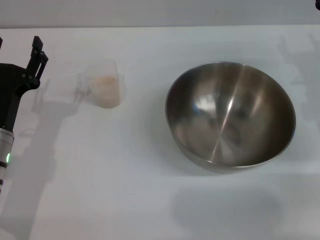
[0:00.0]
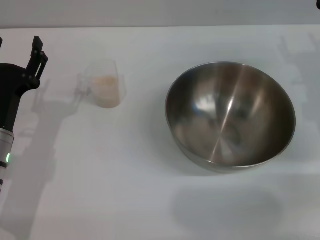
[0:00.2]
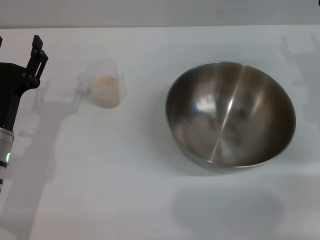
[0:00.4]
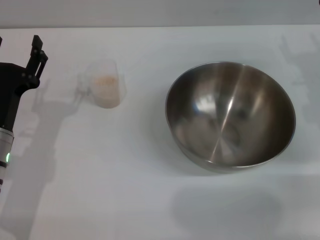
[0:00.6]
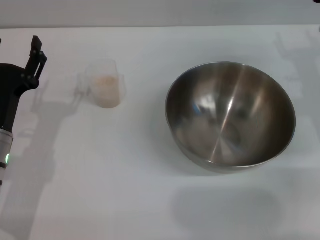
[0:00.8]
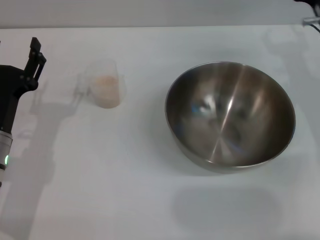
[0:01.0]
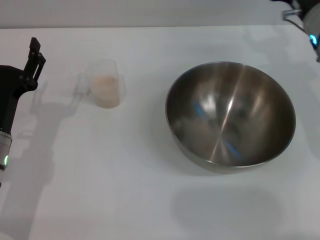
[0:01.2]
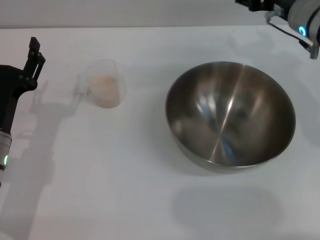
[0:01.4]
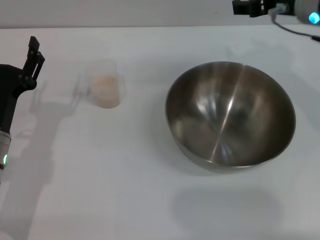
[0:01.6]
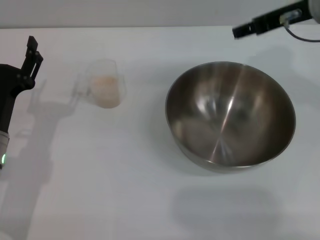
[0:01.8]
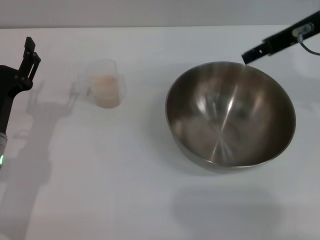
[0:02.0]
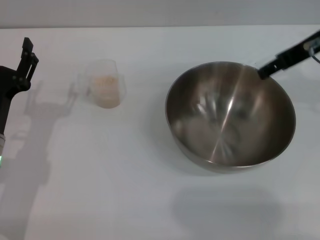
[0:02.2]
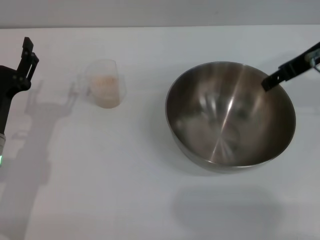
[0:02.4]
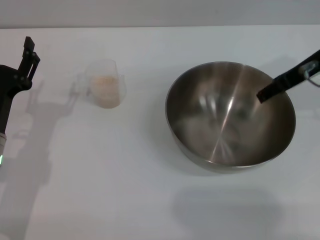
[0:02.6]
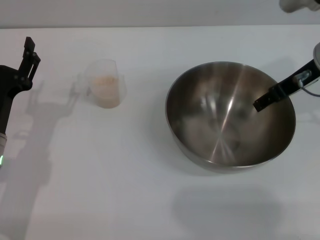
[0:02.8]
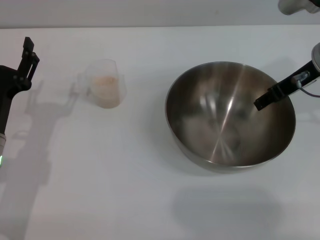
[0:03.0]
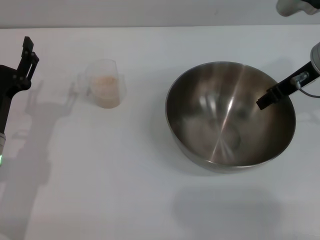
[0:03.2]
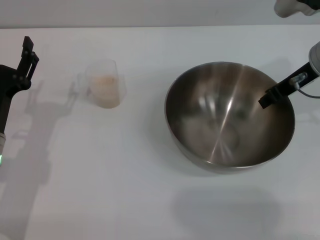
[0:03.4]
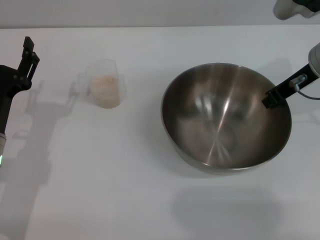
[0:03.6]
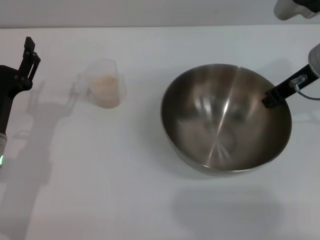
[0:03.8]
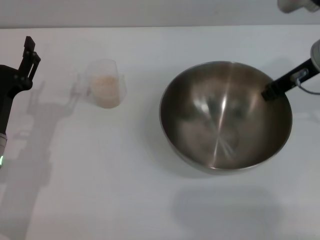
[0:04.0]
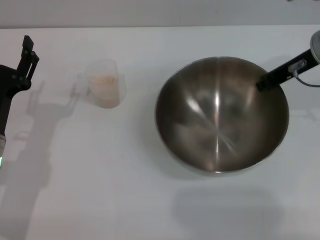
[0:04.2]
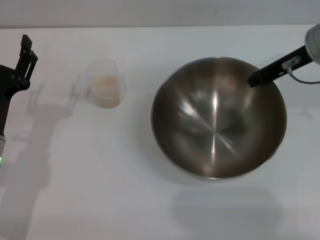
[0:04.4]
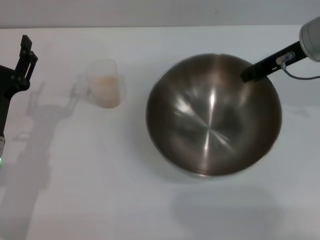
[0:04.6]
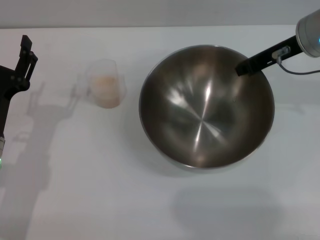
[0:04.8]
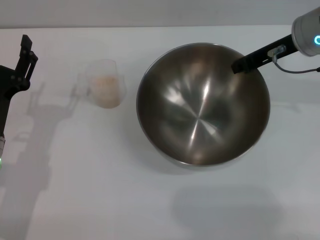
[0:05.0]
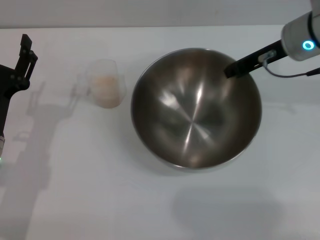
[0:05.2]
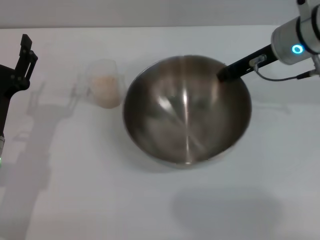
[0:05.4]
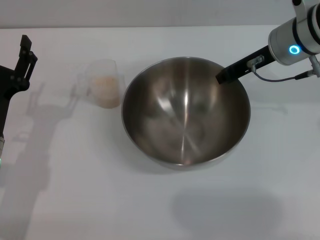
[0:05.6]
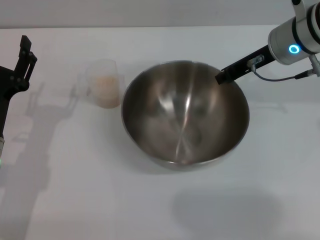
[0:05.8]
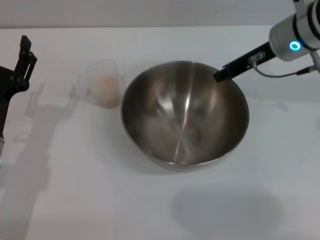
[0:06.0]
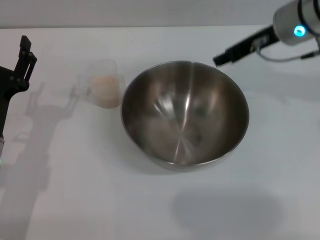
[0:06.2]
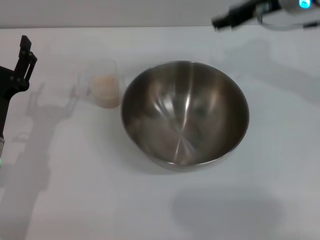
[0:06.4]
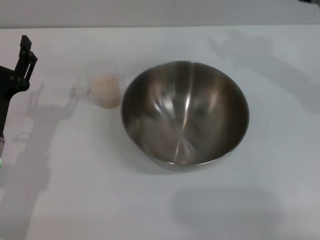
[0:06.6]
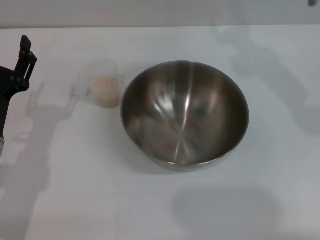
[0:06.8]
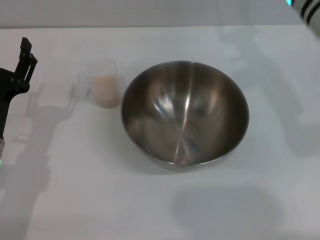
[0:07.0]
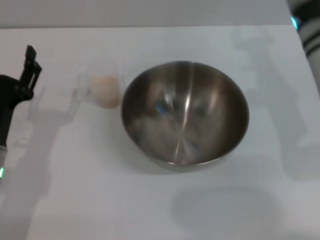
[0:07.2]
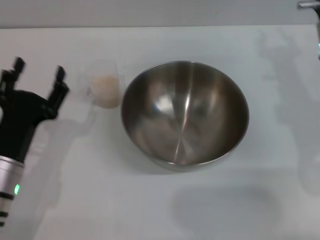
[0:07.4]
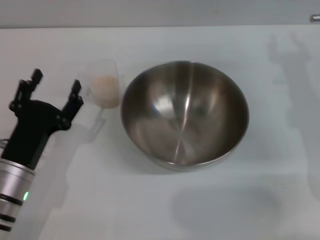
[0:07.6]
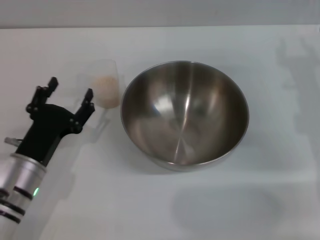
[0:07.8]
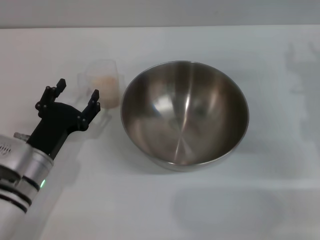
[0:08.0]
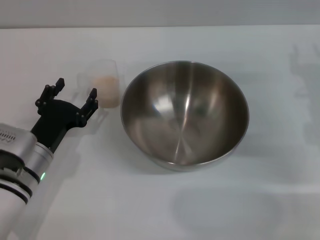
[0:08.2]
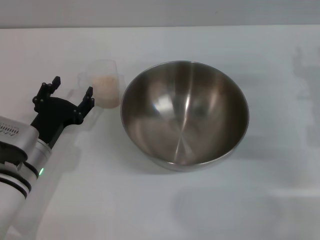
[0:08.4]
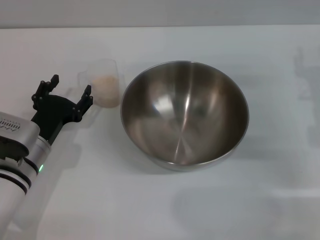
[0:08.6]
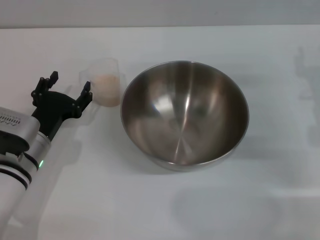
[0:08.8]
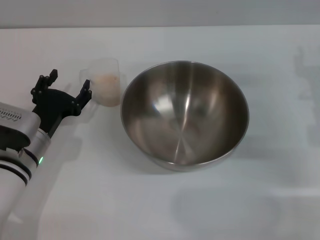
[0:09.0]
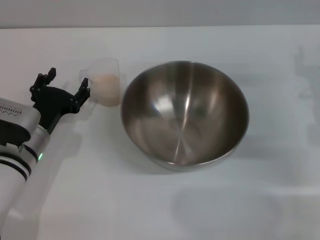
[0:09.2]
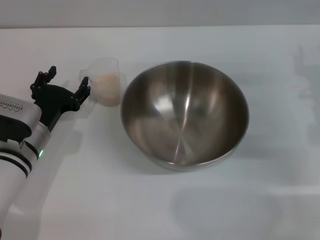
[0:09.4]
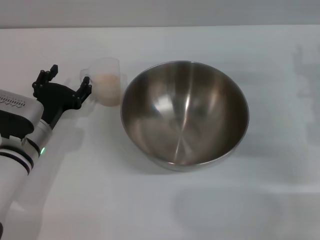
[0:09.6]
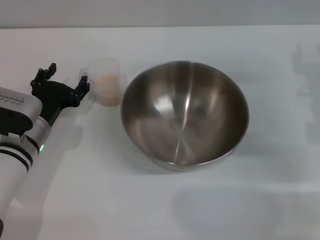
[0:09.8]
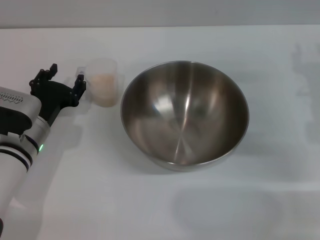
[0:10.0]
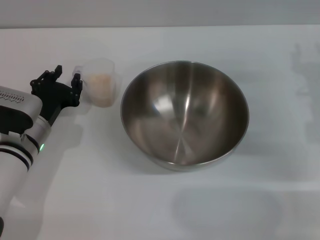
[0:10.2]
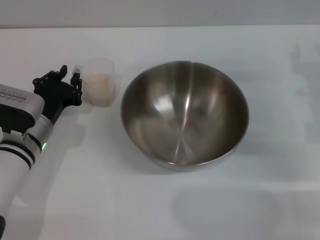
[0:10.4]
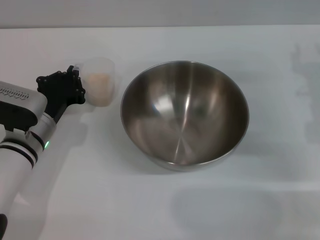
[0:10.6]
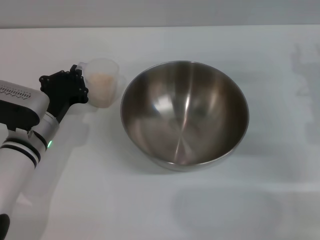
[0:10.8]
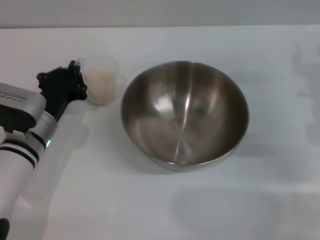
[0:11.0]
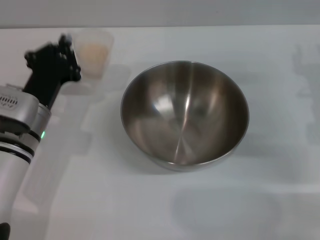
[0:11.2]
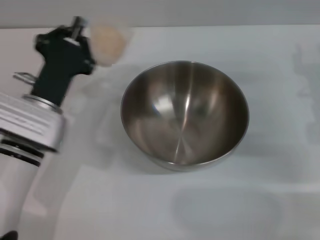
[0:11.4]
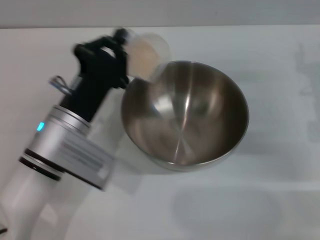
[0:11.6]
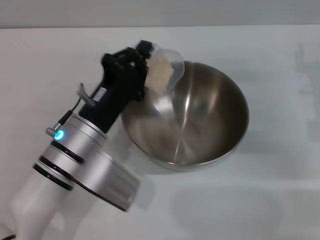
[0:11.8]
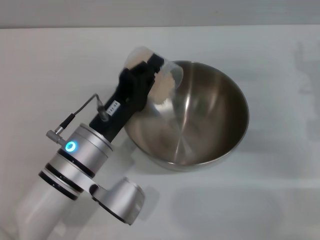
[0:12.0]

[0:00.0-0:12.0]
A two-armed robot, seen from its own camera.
Task of the whole recording: Place the bowl in the middle of the table with one hand and pour the rice from the grain cup into it with the other hand.
Step, 0:00.0 to 0:04.8: Pick up the bowl with the right gripper.
Step, 0:05.0 to 0:06.2: Place the bowl in the center of view with the right gripper.
Step, 0:06.4 to 0:11.2: Pick up the cup with rice in it with the left gripper.
0:00.0 to 0:01.6: The right gripper moves upward and to the left, approximately 15 cm.
0:03.0 to 0:04.4: The right gripper closes up.
0:06.0 to 0:07.6: The right gripper goes about 10 cm downward, backward and to the right, and opens its fingers.
0:07.6 to 0:09.0: The left gripper travels forward by some 5 cm.
0:09.0 to 0:10.4: The left gripper closes.
0:10.4 to 0:12.0: The left gripper travels to the right and backward by approximately 10 cm, and closes up.

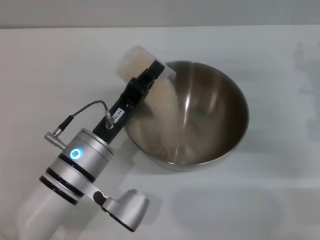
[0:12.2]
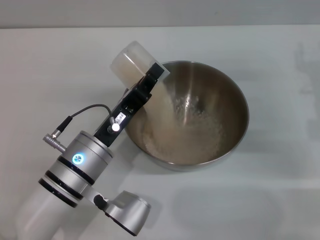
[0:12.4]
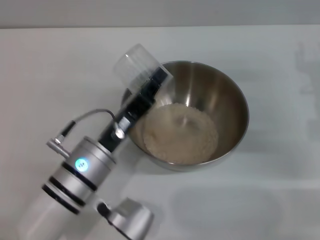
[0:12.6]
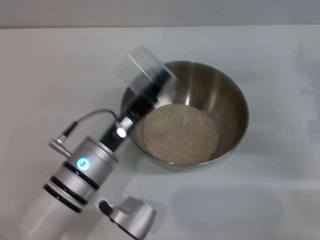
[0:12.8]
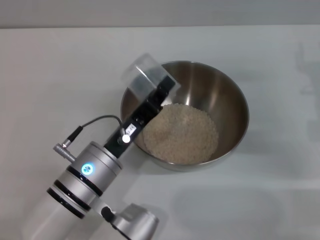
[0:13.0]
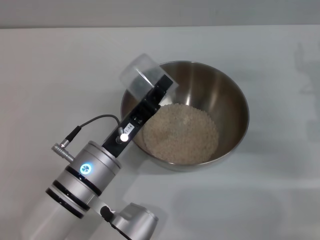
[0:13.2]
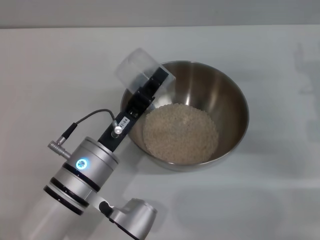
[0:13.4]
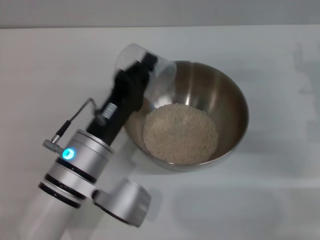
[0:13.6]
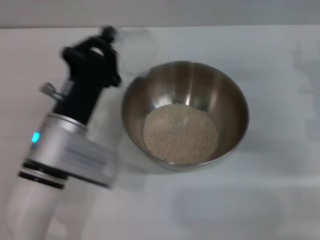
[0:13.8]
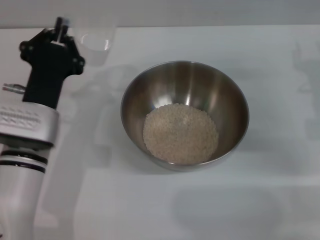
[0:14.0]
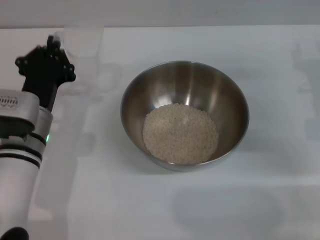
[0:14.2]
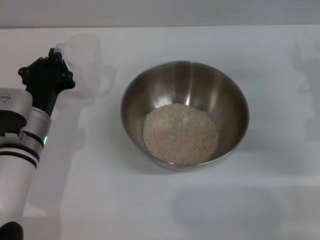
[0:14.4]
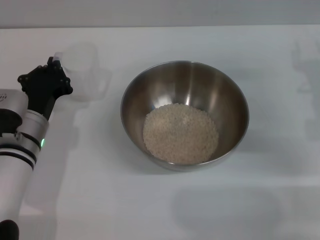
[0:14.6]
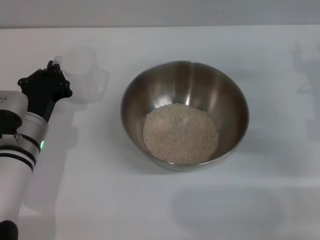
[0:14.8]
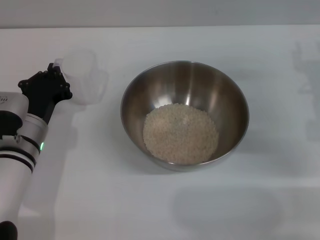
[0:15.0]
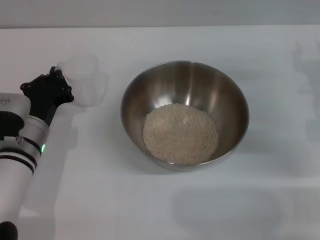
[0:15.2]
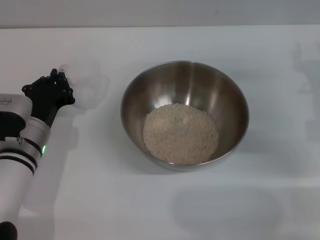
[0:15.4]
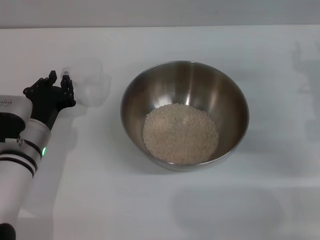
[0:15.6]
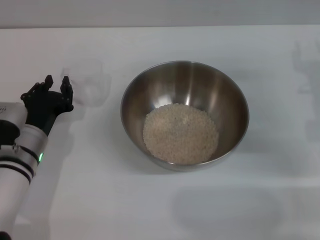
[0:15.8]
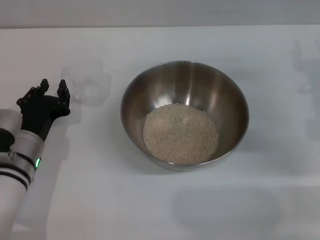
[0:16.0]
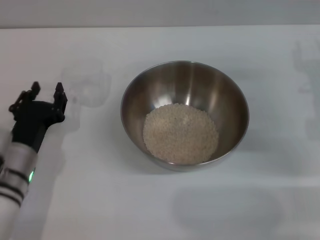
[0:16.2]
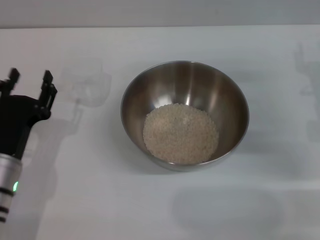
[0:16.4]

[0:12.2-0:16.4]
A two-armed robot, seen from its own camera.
Task of the whole recording: Place the bowl in the middle of the table with one hand and pour the rice from the grain cup into it with the other hand.
Step, 0:12.2 to 0:13.4: Pour the rice from the cup into the bowl with the left gripper.
Step, 0:13.6 to 0:16.2: Place the cup on the table with the left gripper.
0:12.2 to 0:13.6: There are only small adjustments of the grippers.
0:13.6 to 0:15.0: The left gripper travels to the left and forward by roughly 10 cm.
0:15.0 to 0:16.4: The left gripper is displaced backward by roughly 5 cm, and opens.

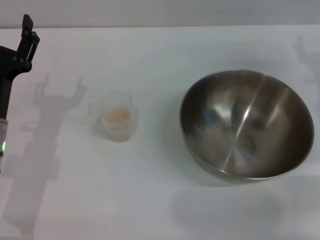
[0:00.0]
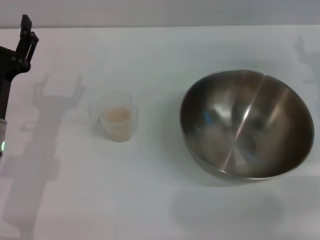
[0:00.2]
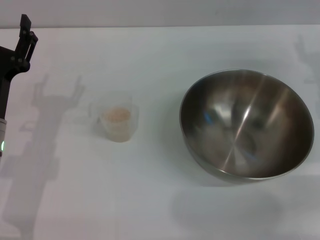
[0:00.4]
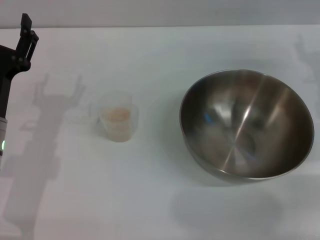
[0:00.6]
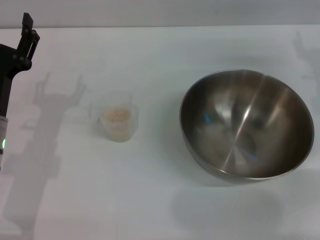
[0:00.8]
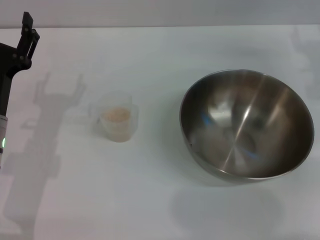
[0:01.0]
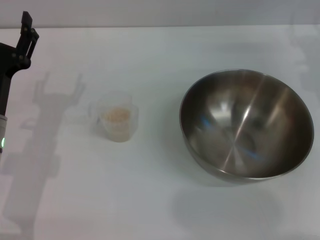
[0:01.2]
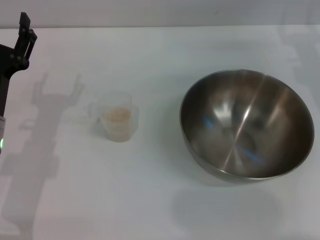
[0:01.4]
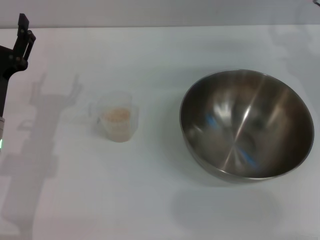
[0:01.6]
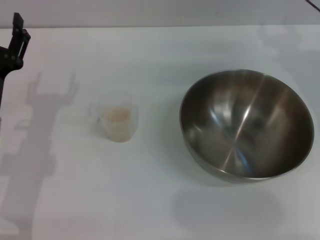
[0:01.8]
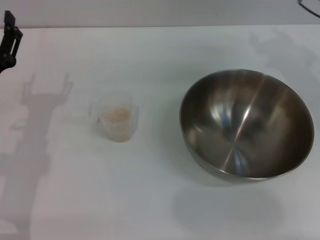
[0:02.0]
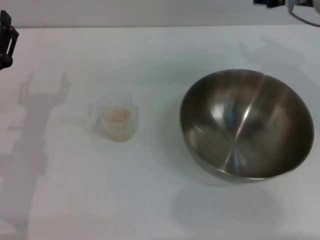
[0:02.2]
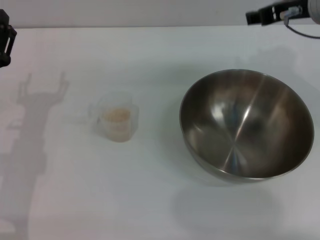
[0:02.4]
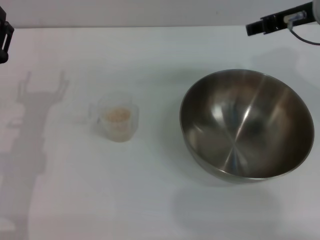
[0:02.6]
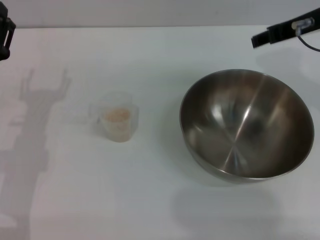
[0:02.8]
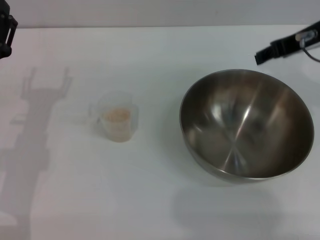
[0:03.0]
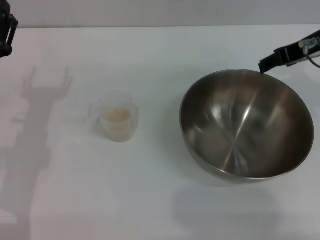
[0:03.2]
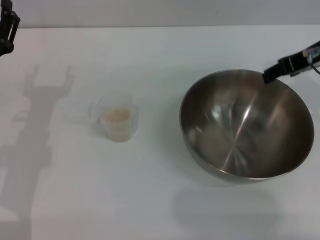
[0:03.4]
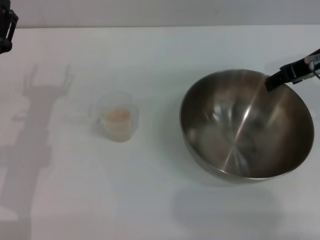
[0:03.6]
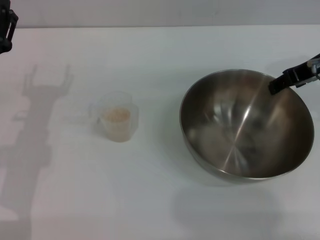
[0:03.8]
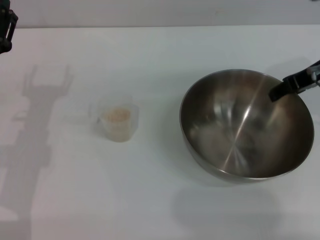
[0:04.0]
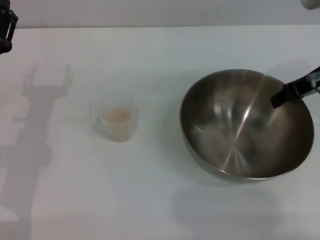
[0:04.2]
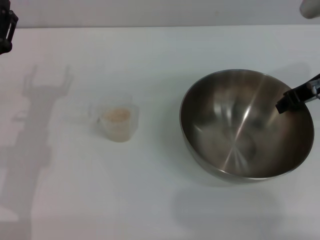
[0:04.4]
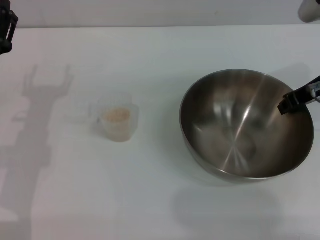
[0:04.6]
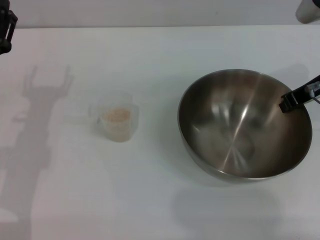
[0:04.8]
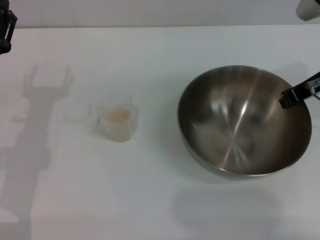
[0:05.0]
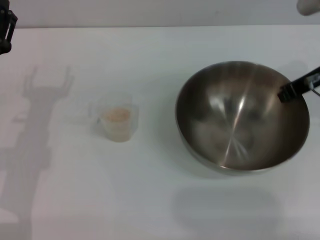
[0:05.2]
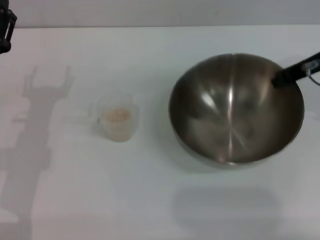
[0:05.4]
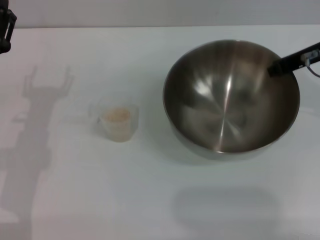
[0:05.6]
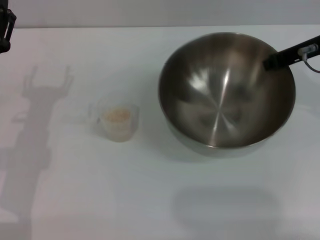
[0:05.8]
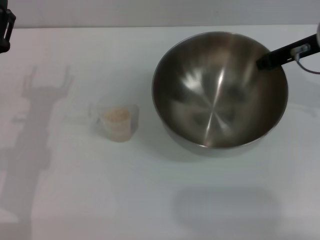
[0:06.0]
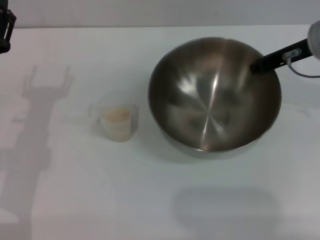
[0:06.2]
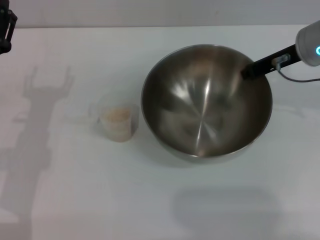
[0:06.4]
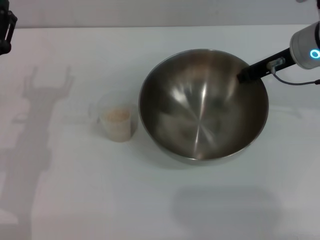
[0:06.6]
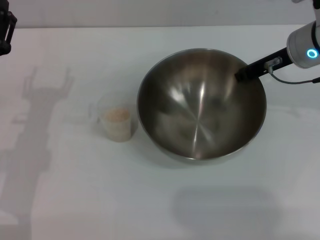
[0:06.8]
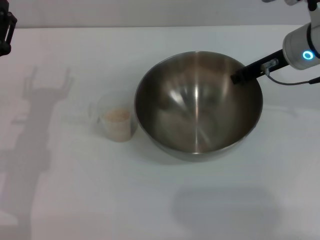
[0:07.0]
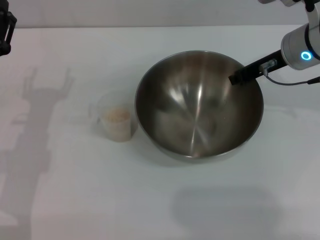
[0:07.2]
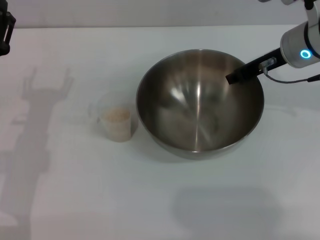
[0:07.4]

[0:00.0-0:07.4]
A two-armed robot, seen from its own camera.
Task of the whole recording: Place the bowl in the middle of the table with one hand and pour the rice from the grain cup into it with the other hand.
Step, 0:00.0 to 0:05.6: Pick up the bowl with the right gripper.
0:01.4 to 0:03.0: The right gripper moves upward and to the left, some 10 cm.
0:03.0 to 0:04.4: The right gripper ends up about 5 cm from where it was.
0:04.4 to 0:06.0: The right gripper closes up.
0:06.0 to 0:07.4: The grippers move only a little.
